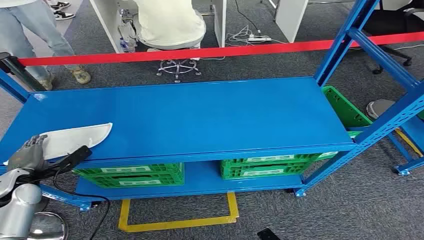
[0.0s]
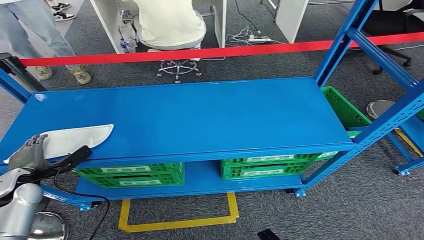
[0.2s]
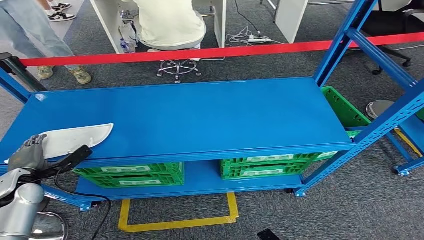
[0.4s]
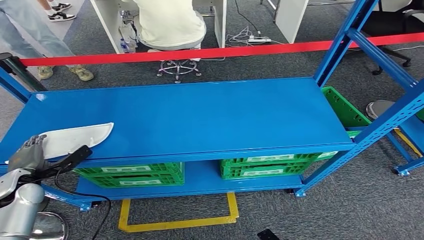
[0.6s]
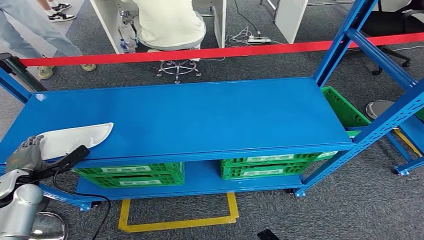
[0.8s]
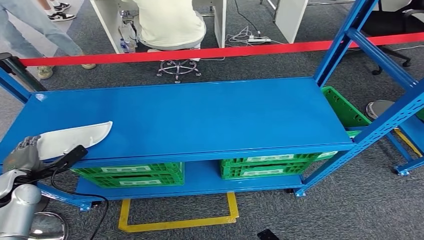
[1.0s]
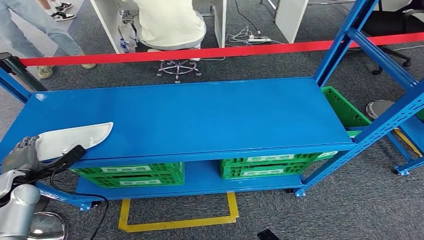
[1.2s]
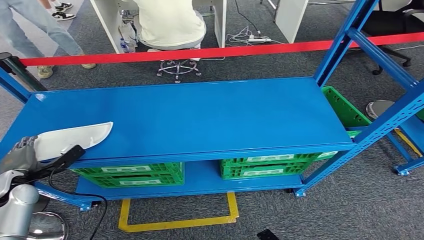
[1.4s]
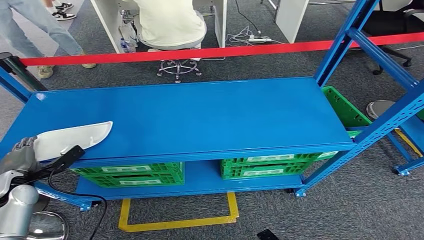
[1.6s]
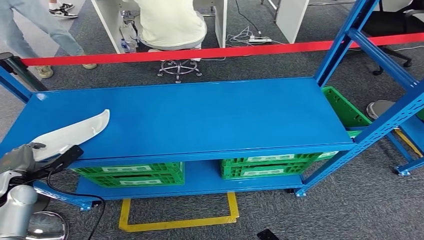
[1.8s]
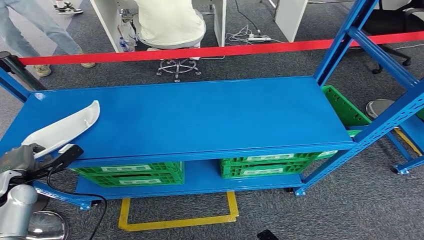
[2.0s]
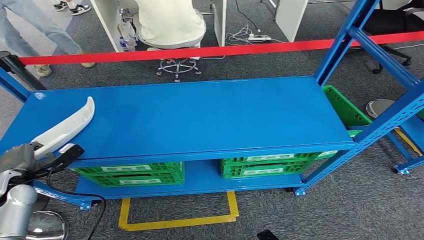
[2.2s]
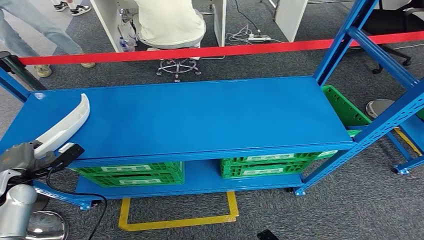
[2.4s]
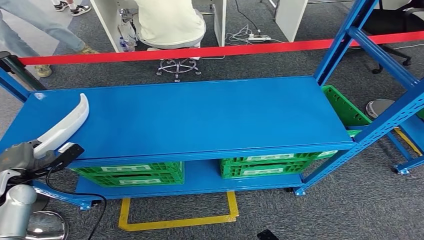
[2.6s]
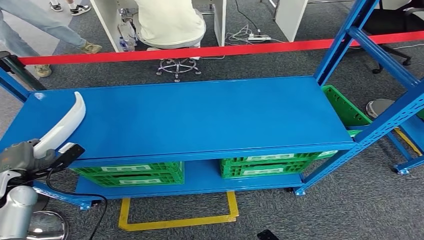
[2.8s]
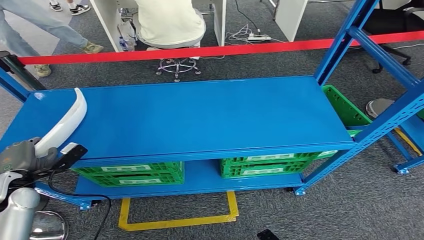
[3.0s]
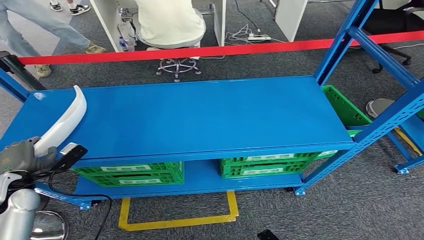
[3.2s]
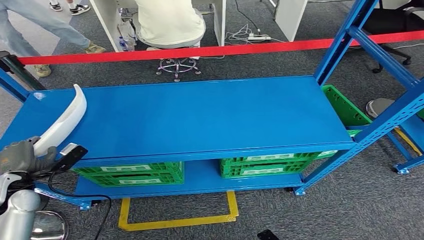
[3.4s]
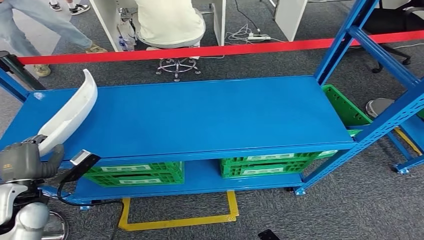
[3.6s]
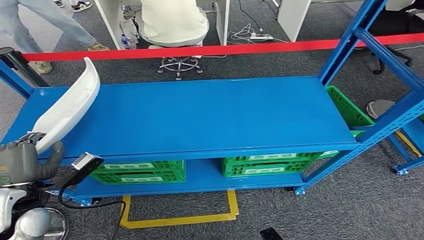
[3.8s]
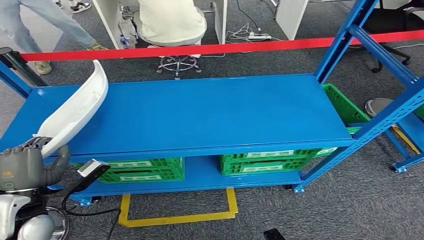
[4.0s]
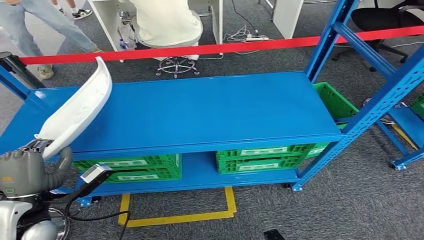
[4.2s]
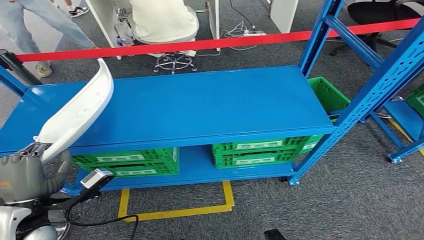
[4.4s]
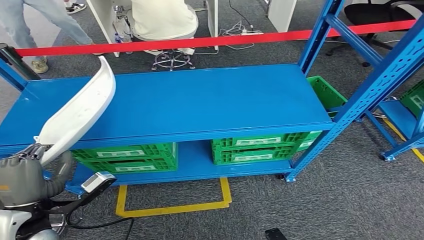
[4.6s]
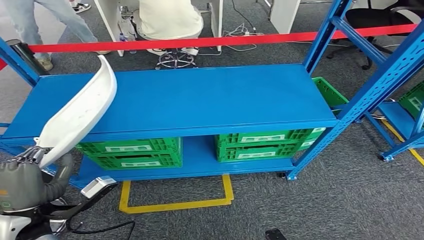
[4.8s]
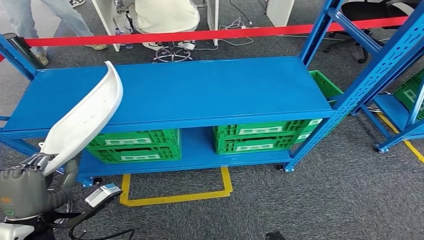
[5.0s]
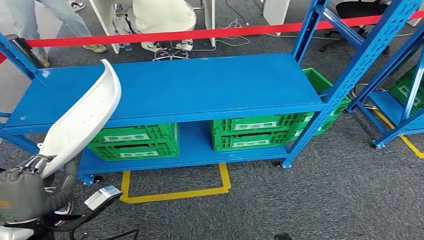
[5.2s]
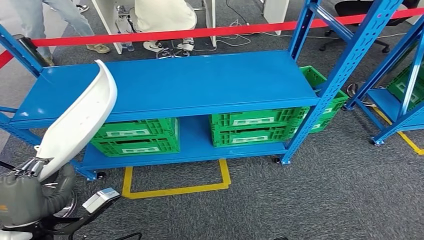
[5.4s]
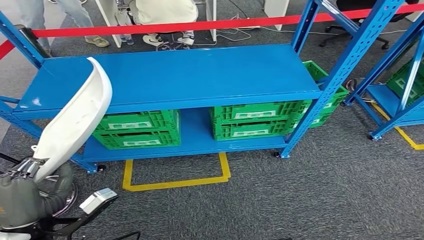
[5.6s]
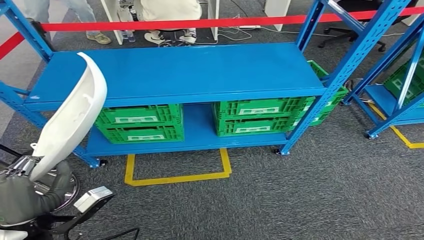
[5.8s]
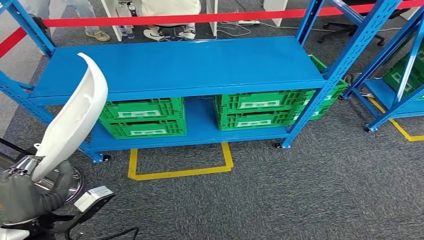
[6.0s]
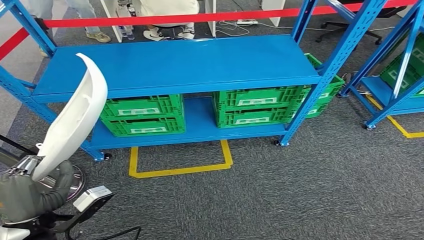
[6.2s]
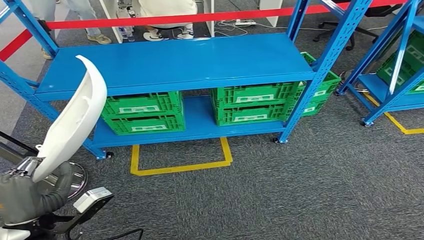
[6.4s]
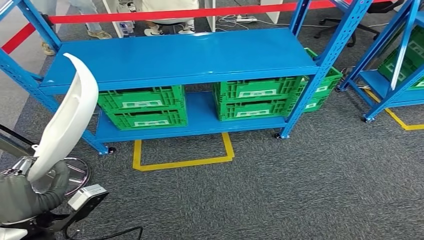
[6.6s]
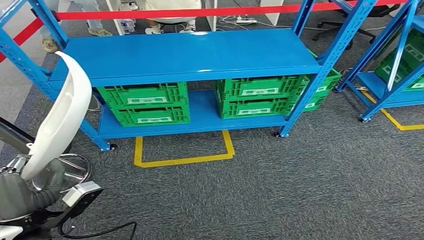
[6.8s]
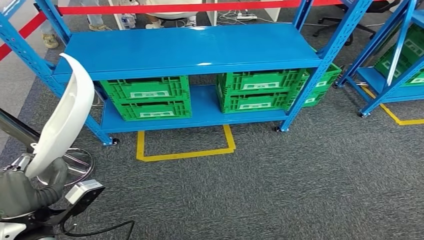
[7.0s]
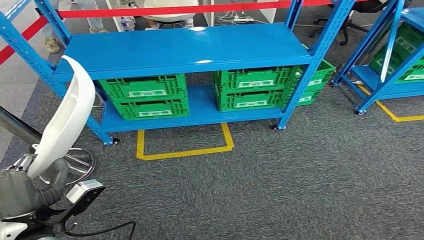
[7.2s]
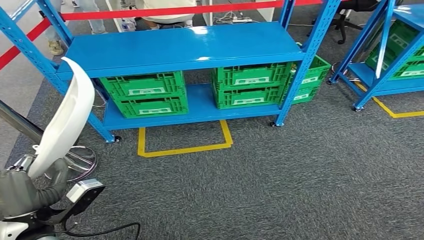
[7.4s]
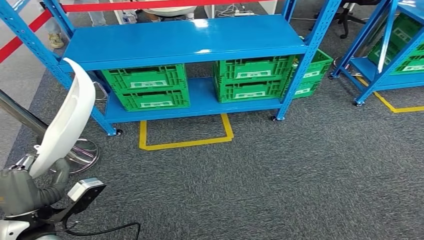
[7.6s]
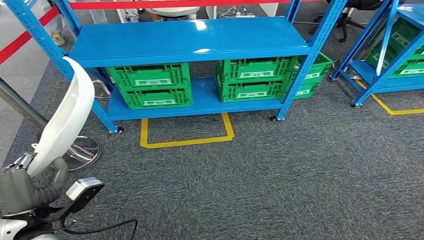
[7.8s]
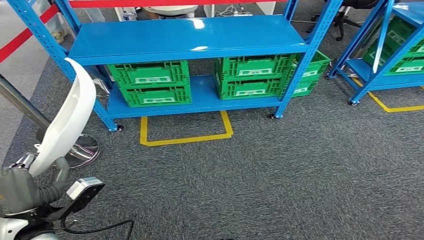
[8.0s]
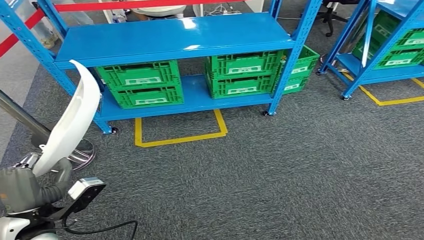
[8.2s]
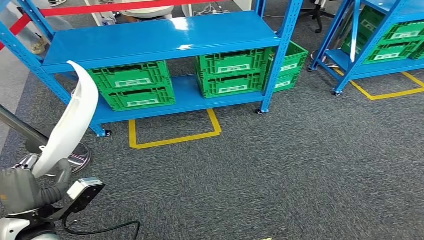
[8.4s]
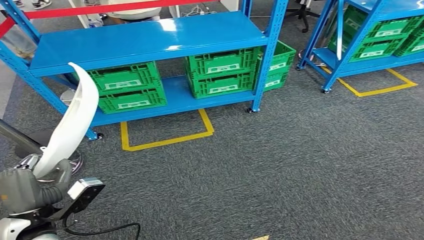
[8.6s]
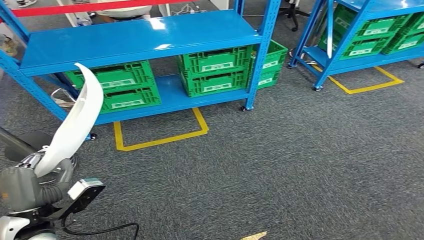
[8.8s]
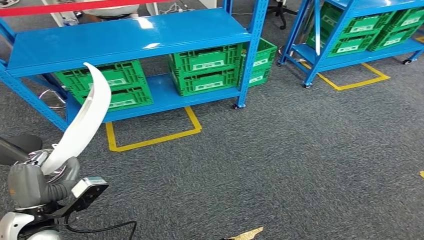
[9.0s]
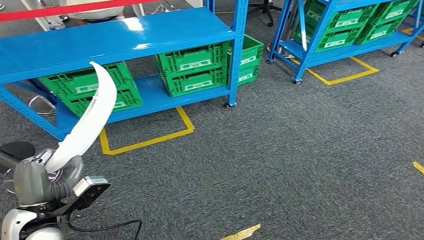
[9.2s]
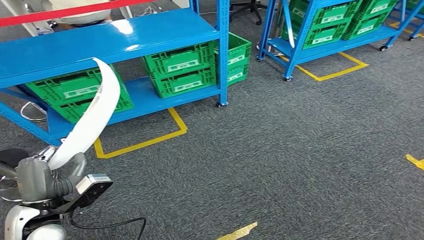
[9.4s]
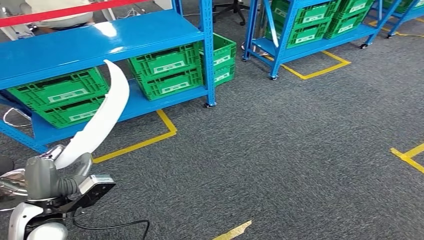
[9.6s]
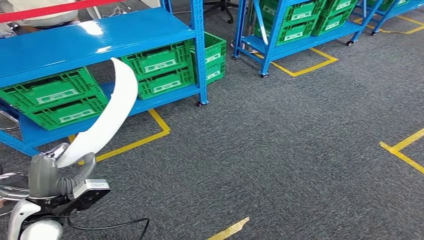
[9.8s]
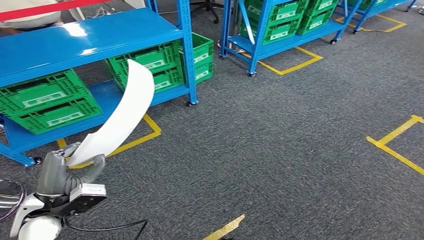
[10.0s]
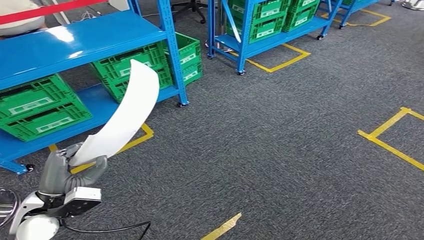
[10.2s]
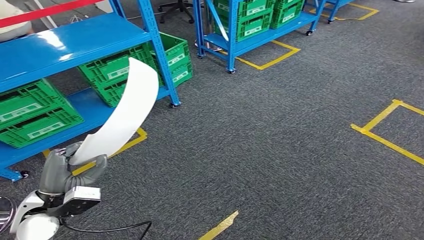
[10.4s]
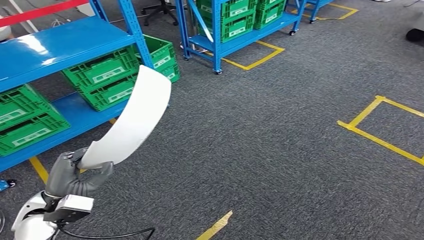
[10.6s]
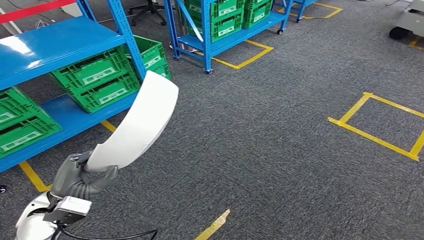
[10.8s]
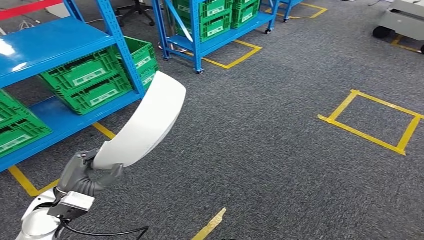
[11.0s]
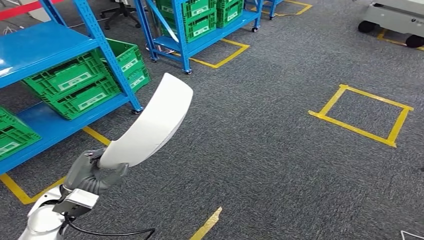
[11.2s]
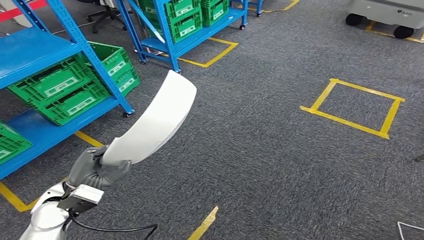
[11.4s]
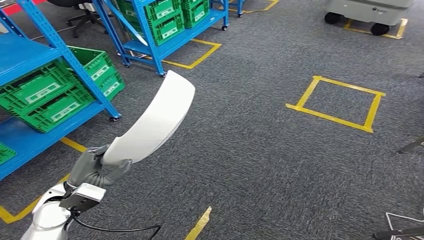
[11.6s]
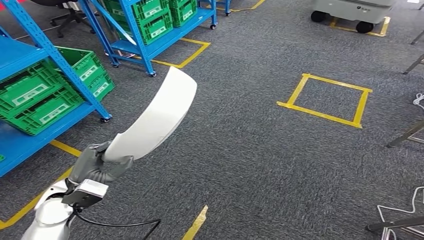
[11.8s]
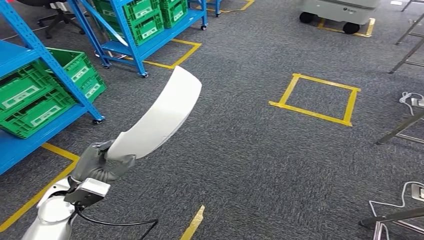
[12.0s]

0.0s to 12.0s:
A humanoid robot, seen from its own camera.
Step, 0.0s to 4.4s: Pick up the small parts from the shelf.
1.6s to 3.0s: The hands make only small movements.

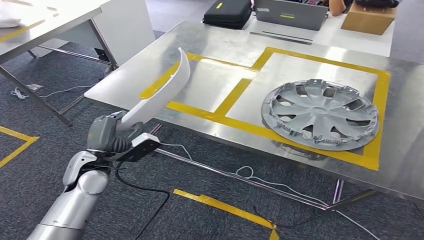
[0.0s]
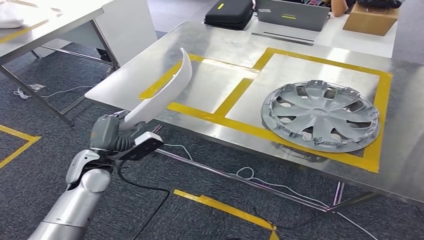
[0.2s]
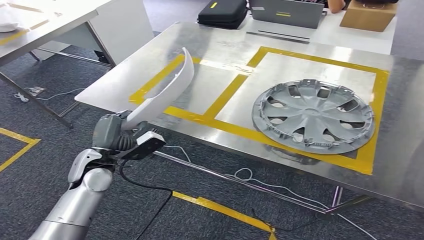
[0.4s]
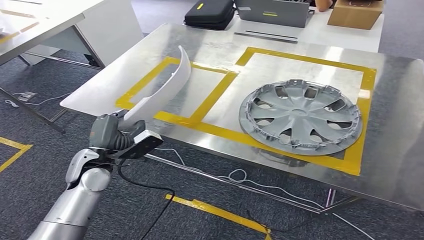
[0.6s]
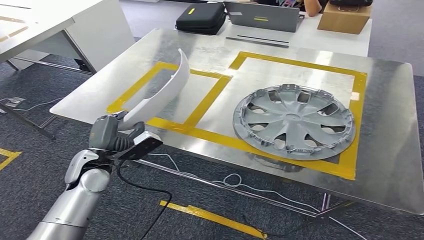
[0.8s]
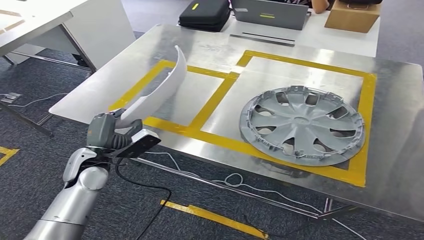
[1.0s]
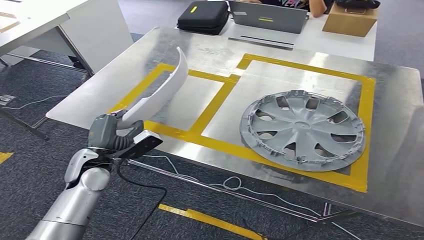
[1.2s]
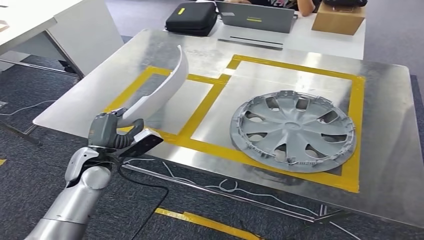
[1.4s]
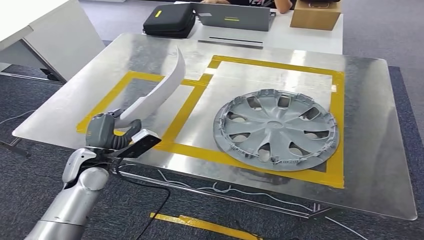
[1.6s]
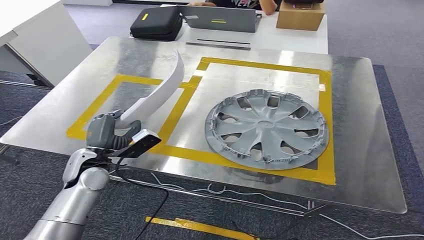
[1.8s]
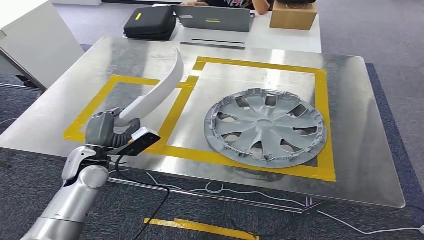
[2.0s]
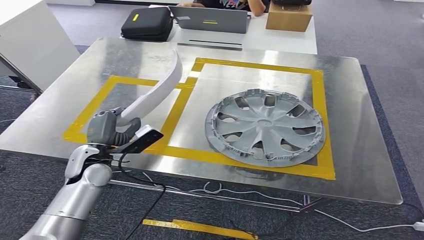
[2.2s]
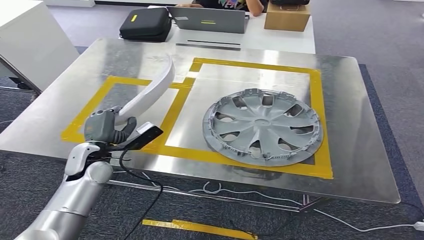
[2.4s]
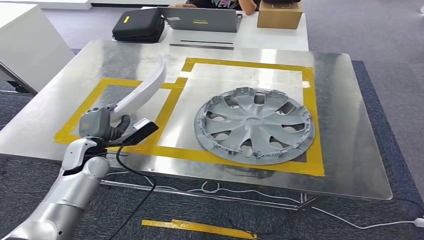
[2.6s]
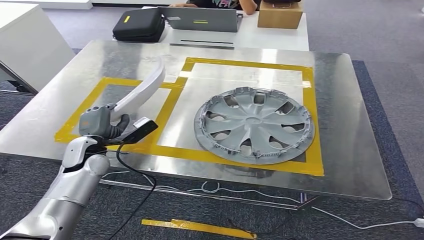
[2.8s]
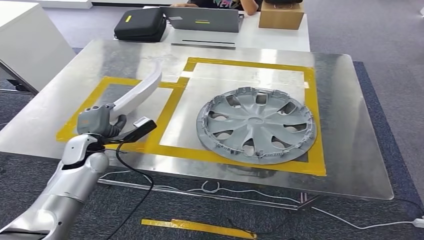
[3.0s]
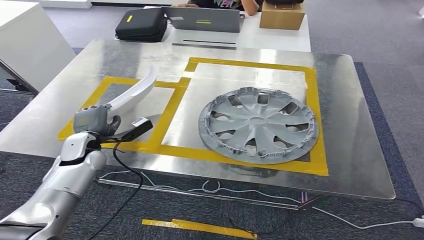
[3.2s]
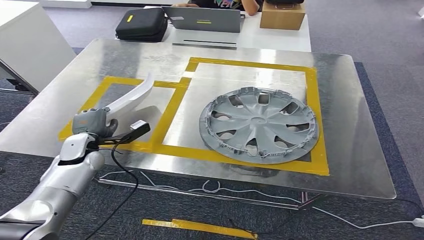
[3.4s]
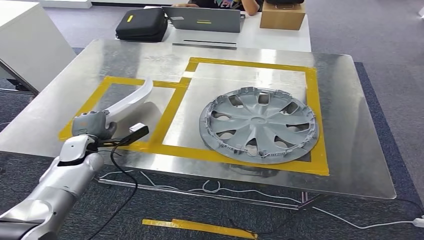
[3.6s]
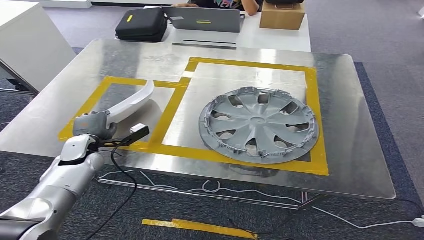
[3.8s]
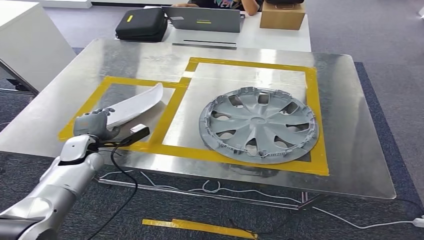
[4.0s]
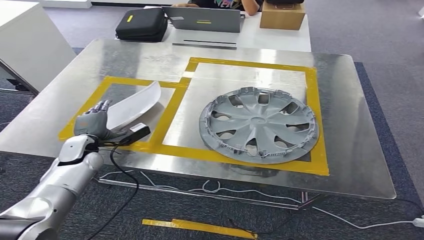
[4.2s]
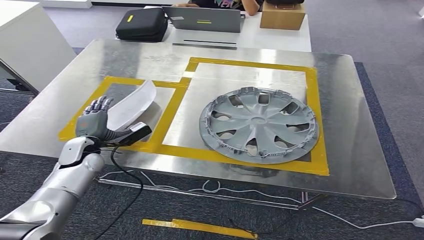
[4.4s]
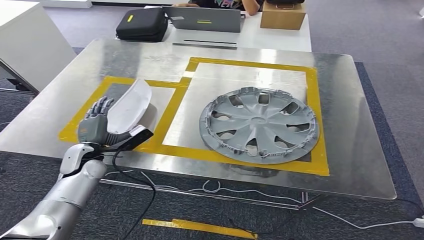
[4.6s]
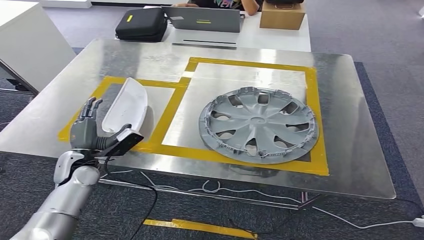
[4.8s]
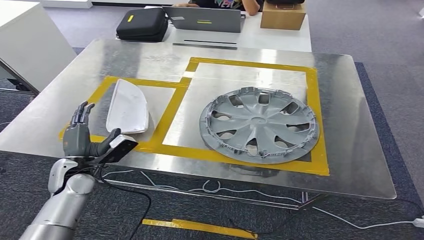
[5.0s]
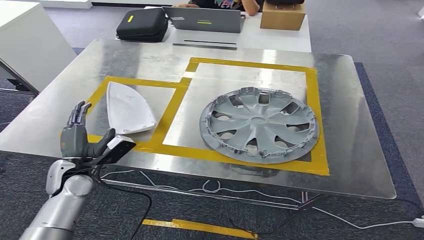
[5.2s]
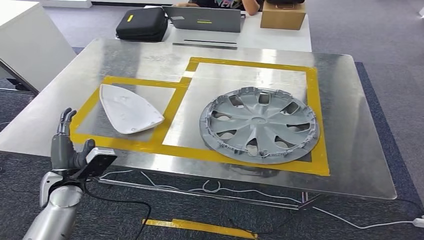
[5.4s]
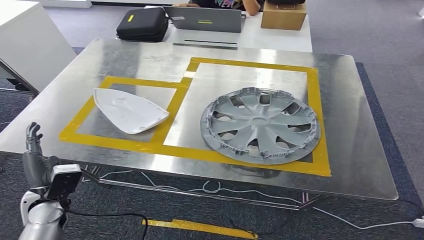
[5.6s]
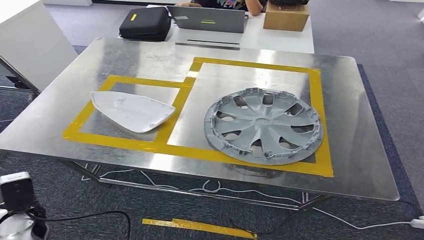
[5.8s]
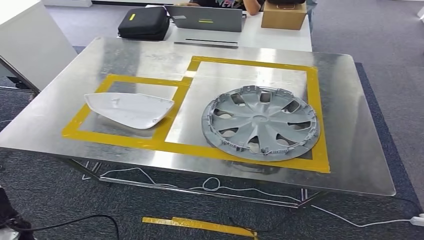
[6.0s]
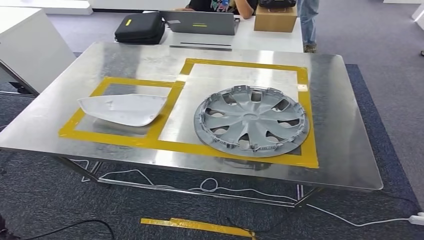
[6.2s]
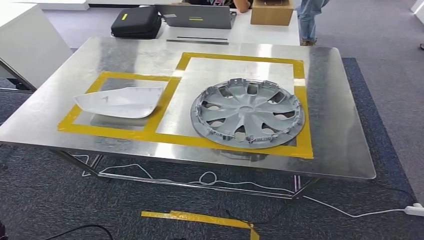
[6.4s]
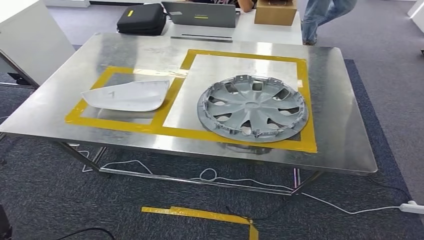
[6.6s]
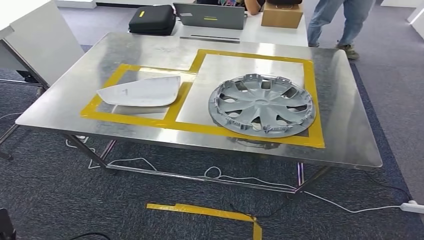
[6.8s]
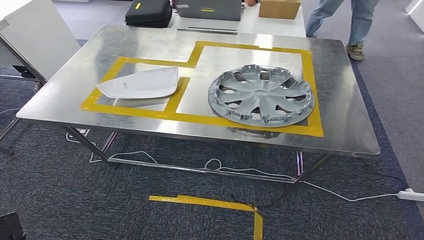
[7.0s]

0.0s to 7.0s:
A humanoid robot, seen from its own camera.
Step, 0.4s to 5.4s: Insert the small parts into the corresponding holes on the workbench.
2.8s to 4.2s: The left hand shifts by roughly 5 cm.
4.2s to 5.6s: The left hand shifts roughly 15 cm backward.
